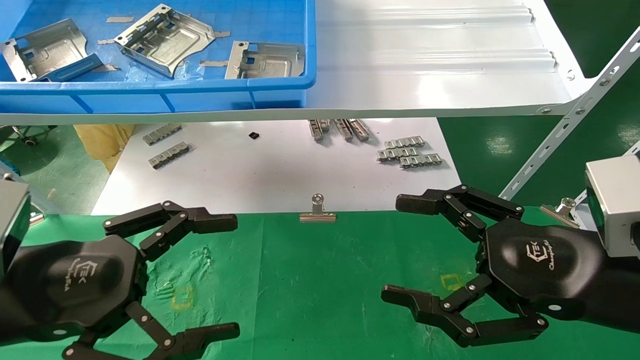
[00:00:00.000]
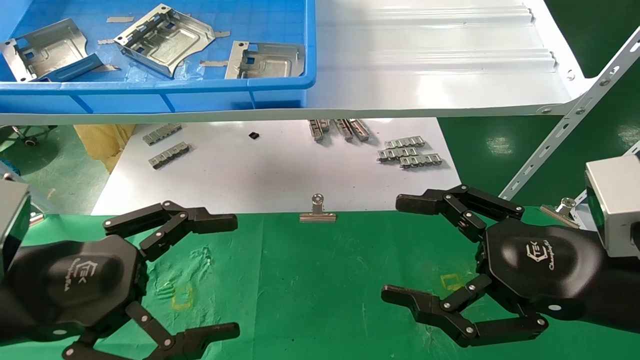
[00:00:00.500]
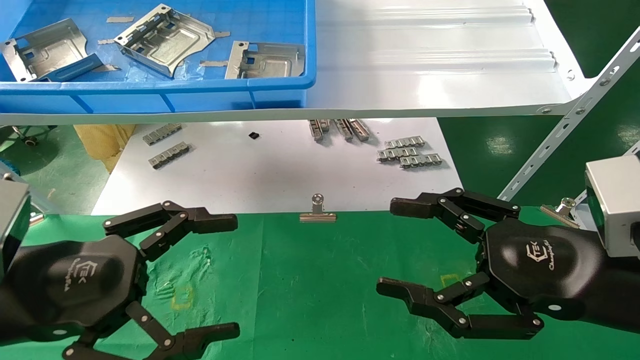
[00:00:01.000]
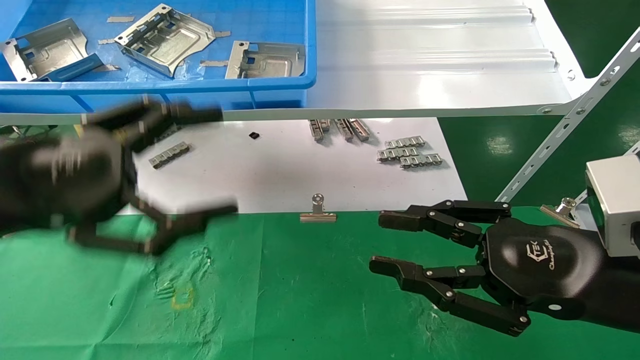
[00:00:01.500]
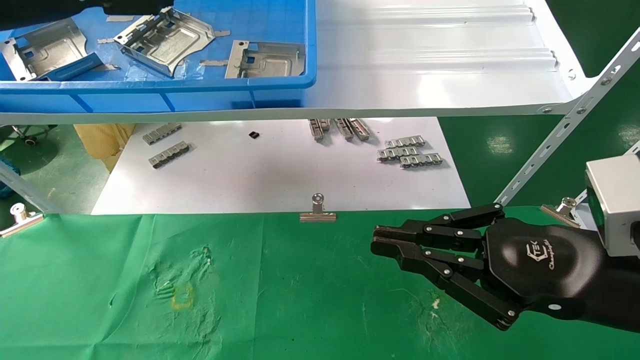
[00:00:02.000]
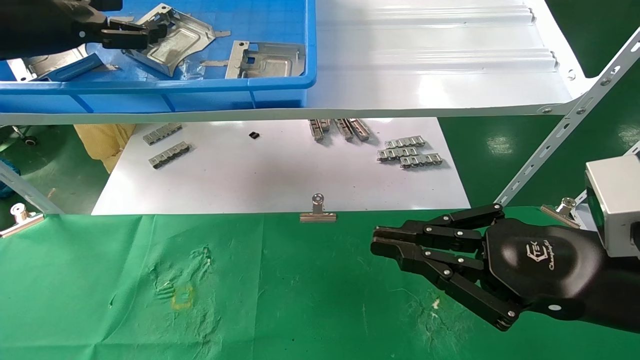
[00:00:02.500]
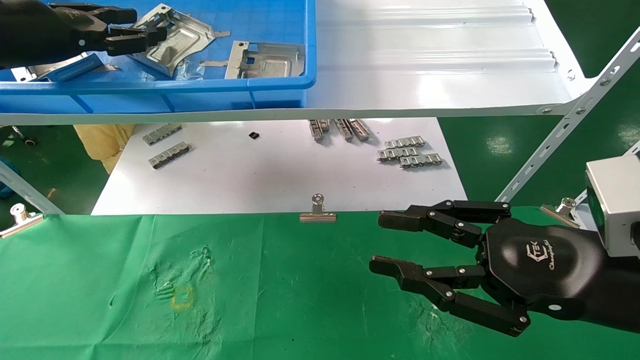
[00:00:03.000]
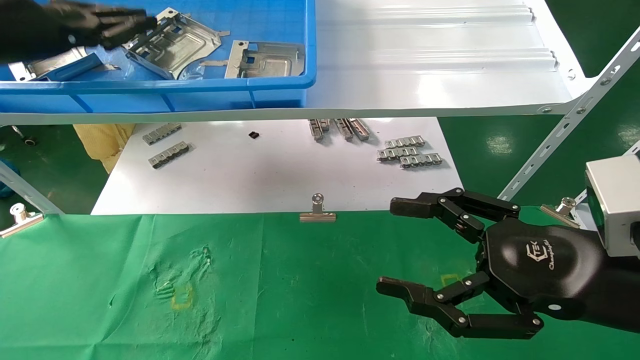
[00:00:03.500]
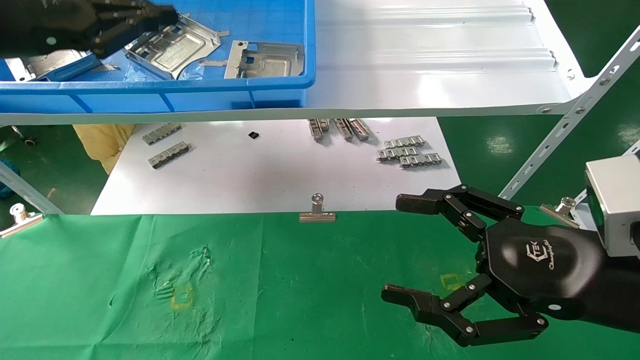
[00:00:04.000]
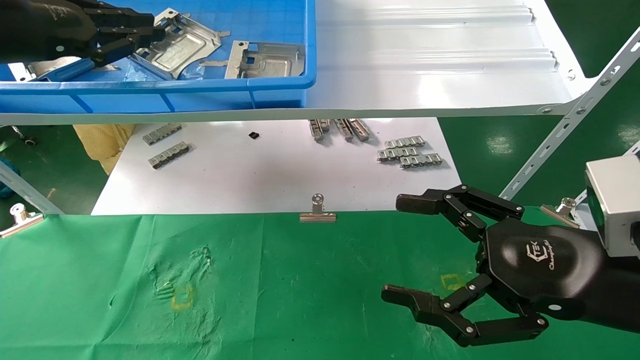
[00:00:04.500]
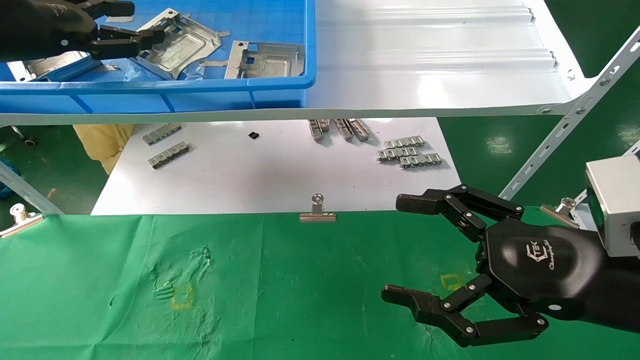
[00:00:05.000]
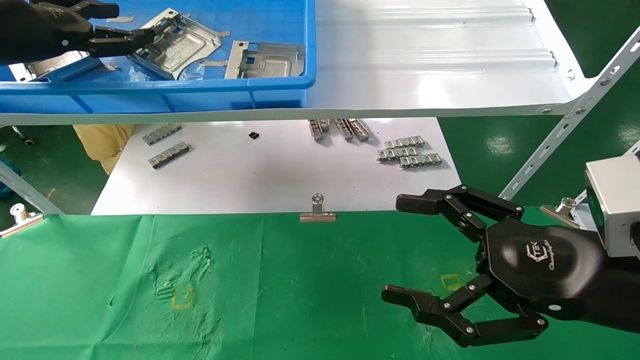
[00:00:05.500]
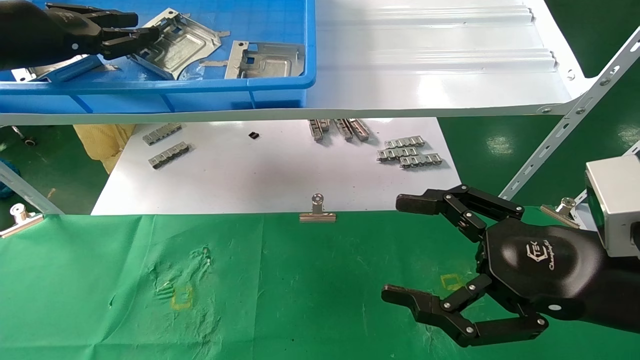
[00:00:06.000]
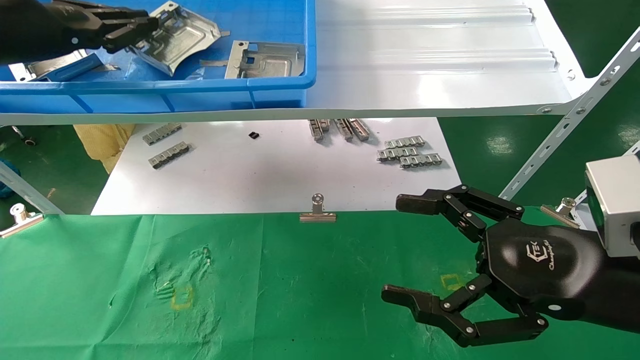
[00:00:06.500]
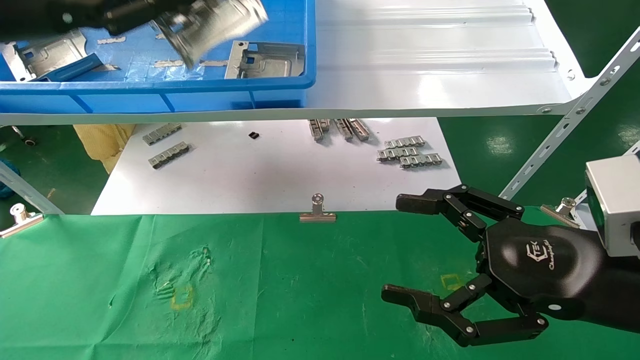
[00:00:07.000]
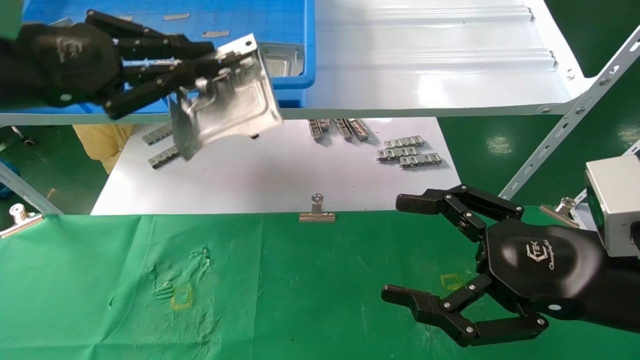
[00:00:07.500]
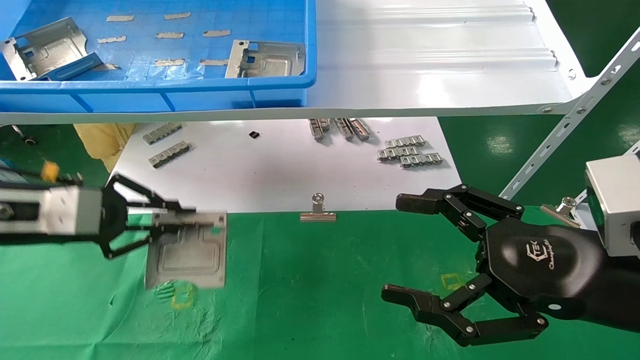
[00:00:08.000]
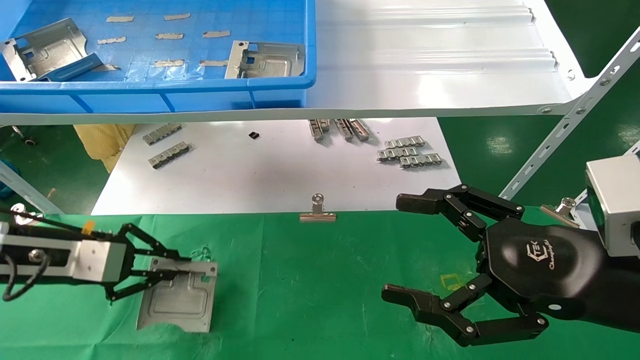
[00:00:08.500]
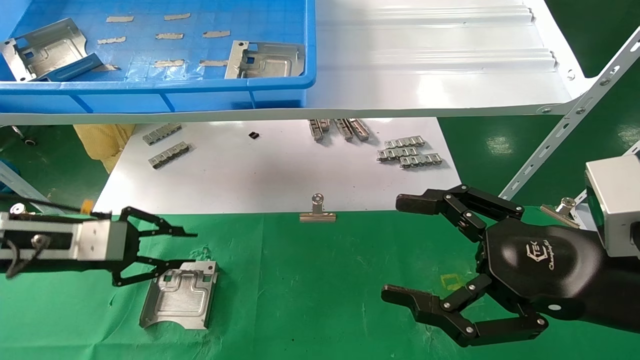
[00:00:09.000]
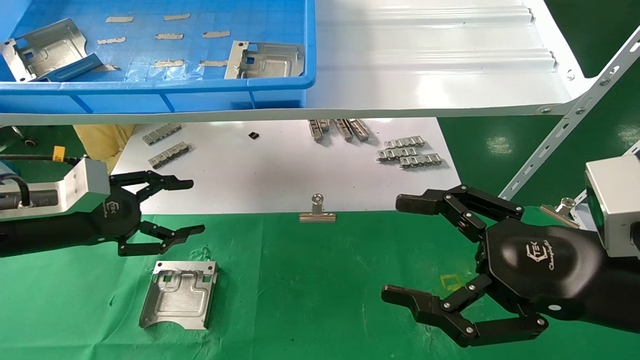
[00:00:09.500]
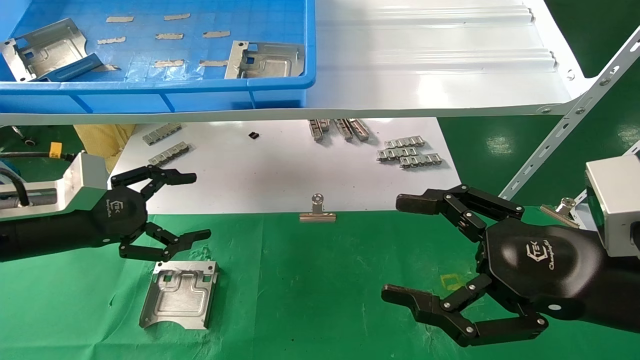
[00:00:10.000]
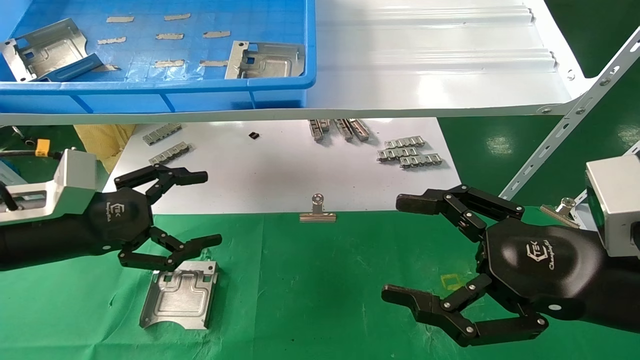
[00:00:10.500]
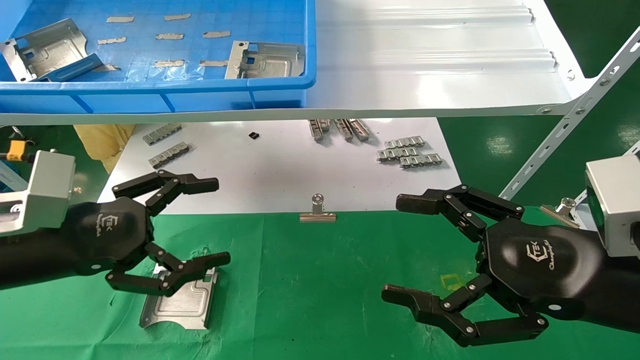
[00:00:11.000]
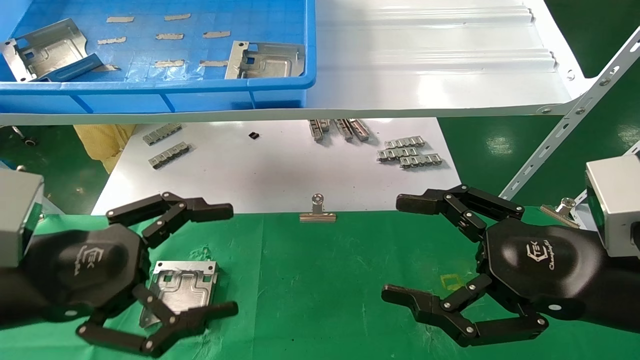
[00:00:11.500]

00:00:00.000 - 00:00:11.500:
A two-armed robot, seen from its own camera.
Task of the whole recording: use the mechanical arm to pick up the parts and place them on the table.
Step, 00:00:01.500 - 00:00:06.500: Pick up the hard drive bracket from the feeding area.
Step, 00:00:07.000 - 00:00:09.000: Place the hard drive bracket into the box.
00:00:00.000 - 00:00:02.000: The left gripper moves upward and forward, roughly 25 cm. The right gripper closes up.
00:00:02.000 - 00:00:04.000: The right gripper opens. Meanwhile the left gripper closes its fingers.
00:00:04.000 - 00:00:06.000: The left gripper is displaced forward by about 5 cm, and opens up.
00:00:06.000 - 00:00:07.500: The left gripper is displaced backward by approximately 10 cm, and closes.
00:00:07.500 - 00:00:09.500: The left gripper moves downward, some 15 cm, and opens.
00:00:09.500 - 00:00:11.500: The left gripper is displaced backward and to the right by about 15 cm, and opens.
